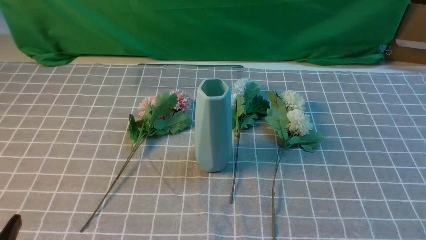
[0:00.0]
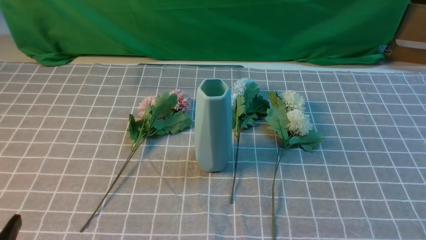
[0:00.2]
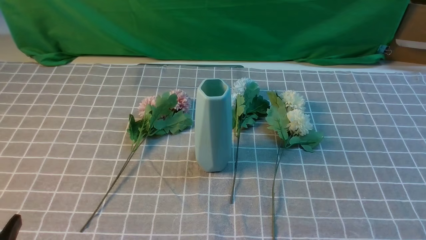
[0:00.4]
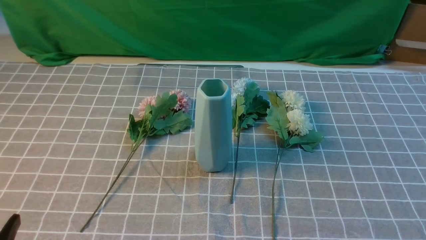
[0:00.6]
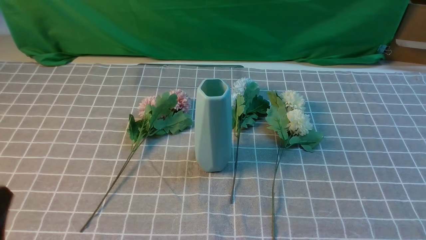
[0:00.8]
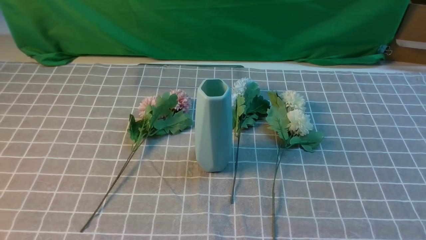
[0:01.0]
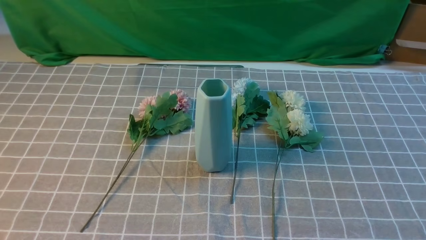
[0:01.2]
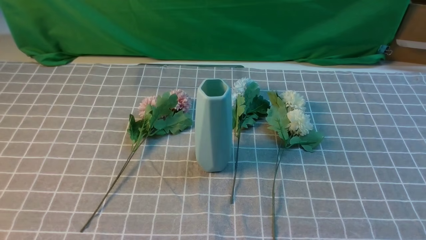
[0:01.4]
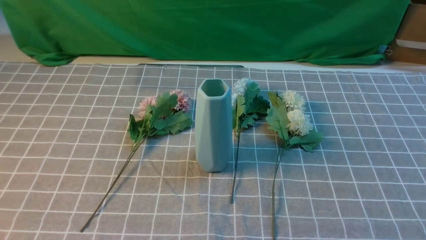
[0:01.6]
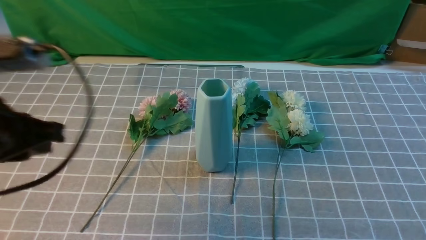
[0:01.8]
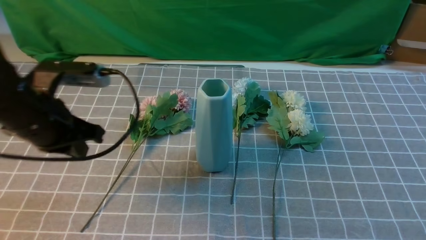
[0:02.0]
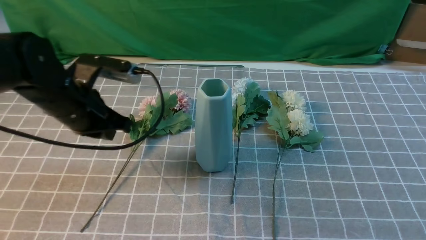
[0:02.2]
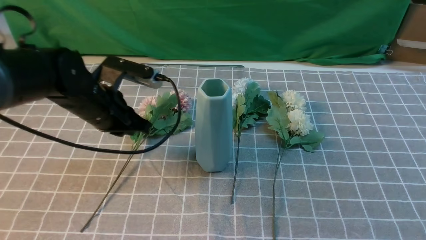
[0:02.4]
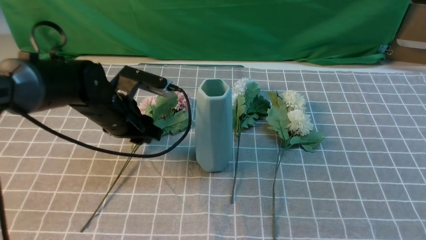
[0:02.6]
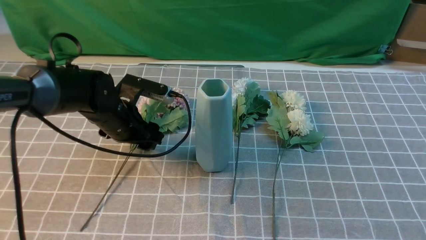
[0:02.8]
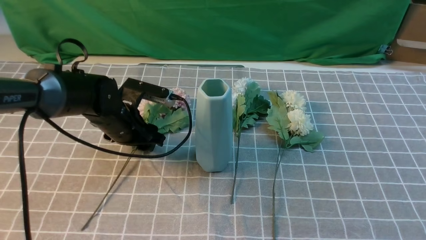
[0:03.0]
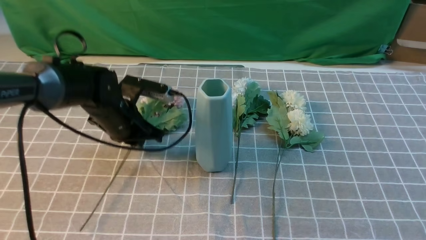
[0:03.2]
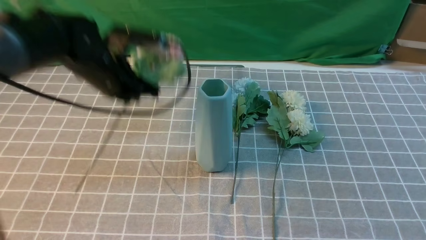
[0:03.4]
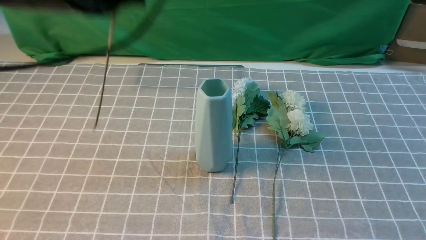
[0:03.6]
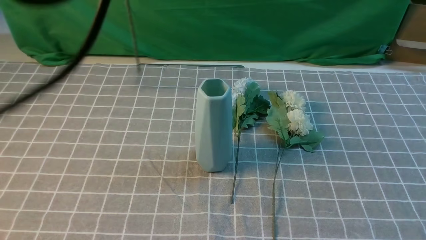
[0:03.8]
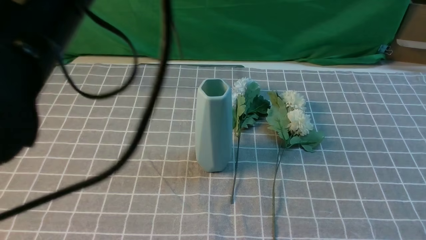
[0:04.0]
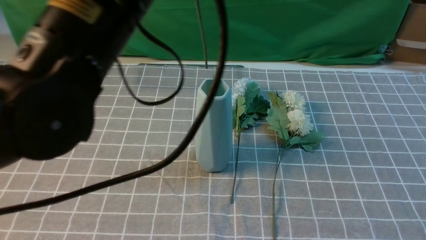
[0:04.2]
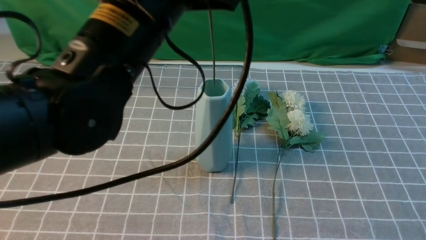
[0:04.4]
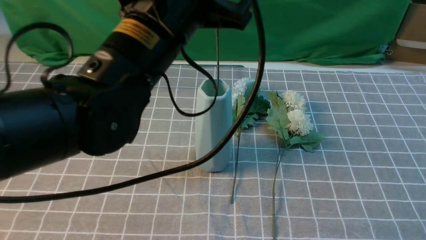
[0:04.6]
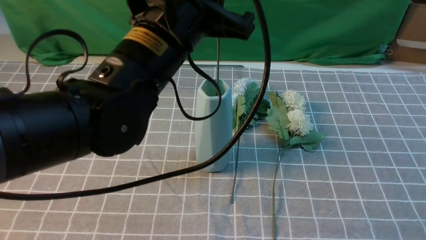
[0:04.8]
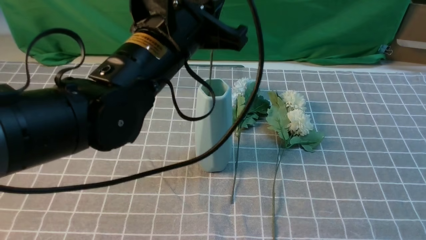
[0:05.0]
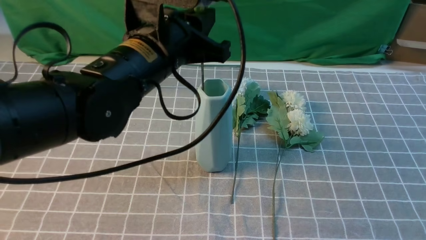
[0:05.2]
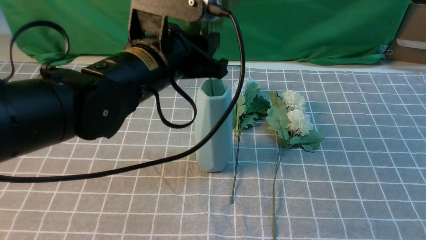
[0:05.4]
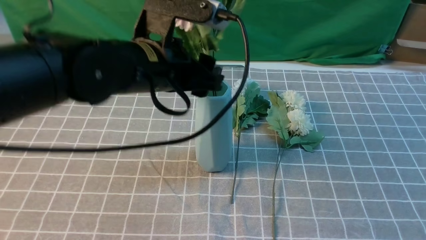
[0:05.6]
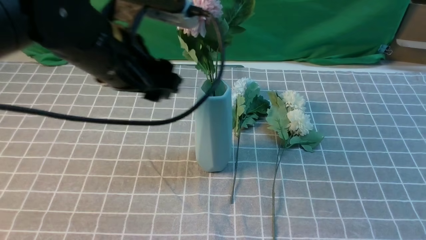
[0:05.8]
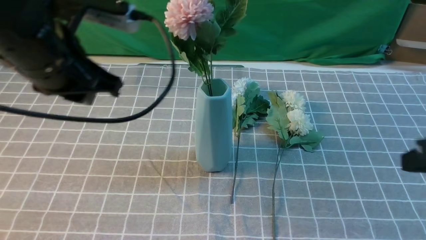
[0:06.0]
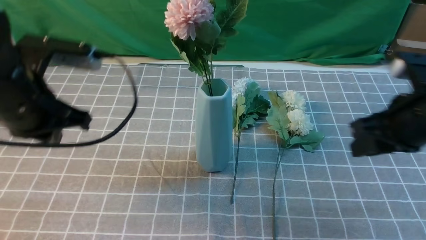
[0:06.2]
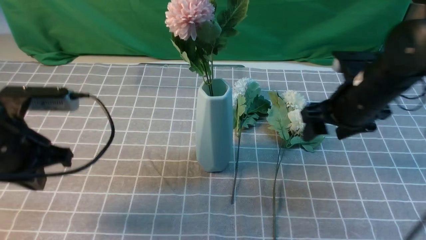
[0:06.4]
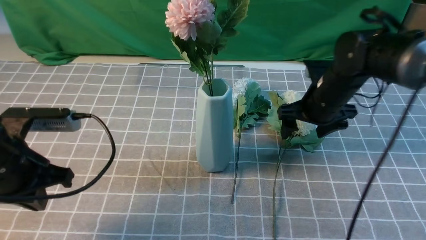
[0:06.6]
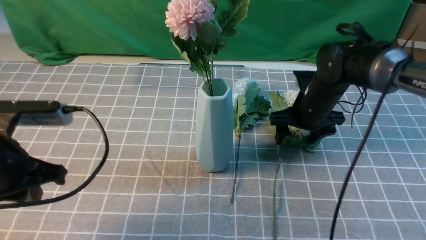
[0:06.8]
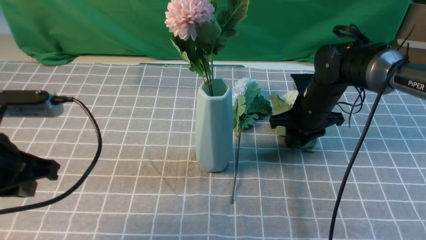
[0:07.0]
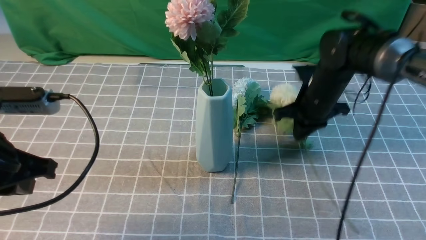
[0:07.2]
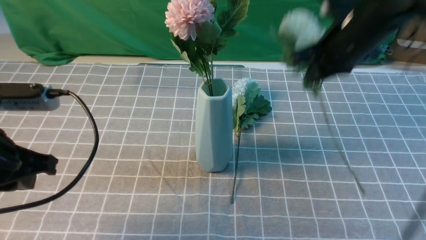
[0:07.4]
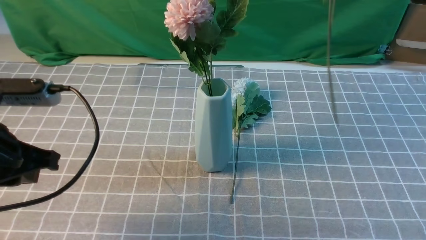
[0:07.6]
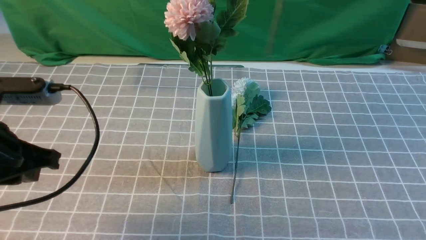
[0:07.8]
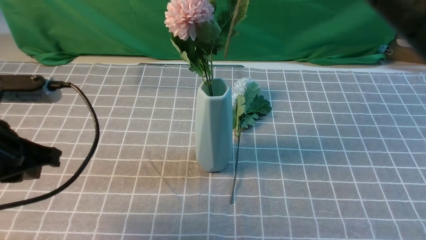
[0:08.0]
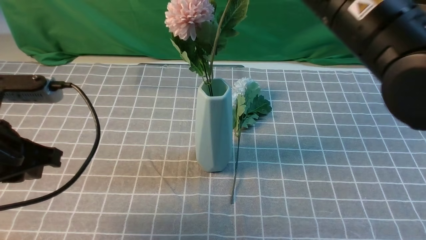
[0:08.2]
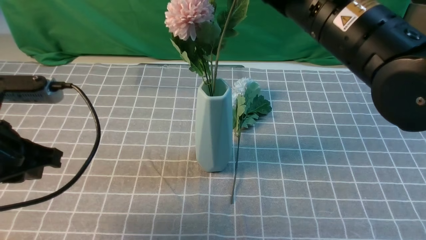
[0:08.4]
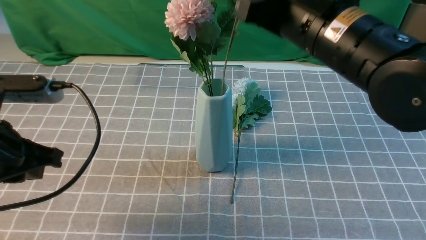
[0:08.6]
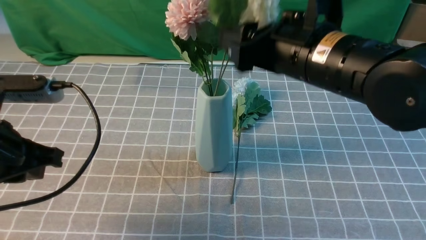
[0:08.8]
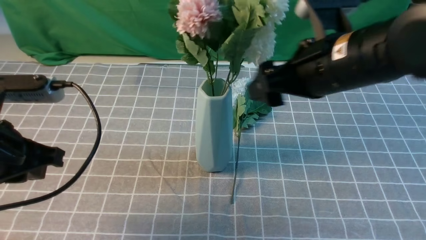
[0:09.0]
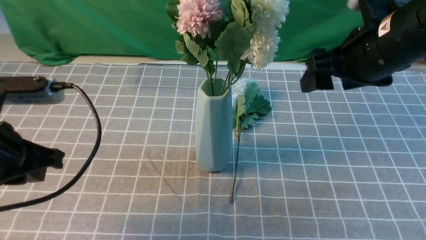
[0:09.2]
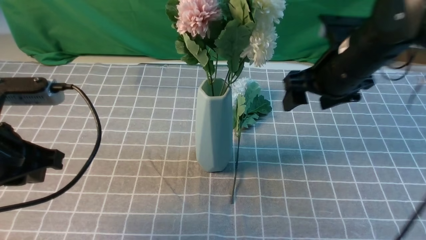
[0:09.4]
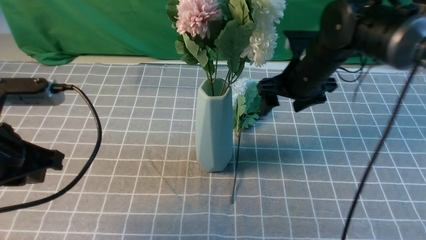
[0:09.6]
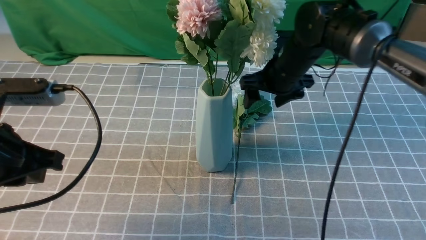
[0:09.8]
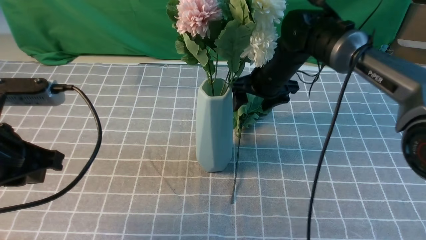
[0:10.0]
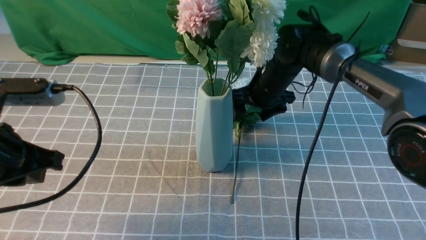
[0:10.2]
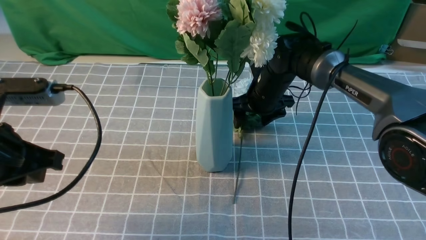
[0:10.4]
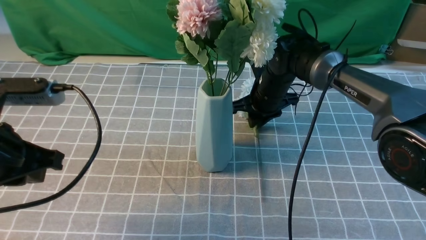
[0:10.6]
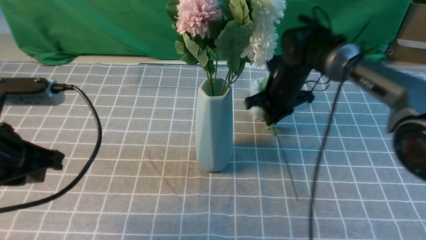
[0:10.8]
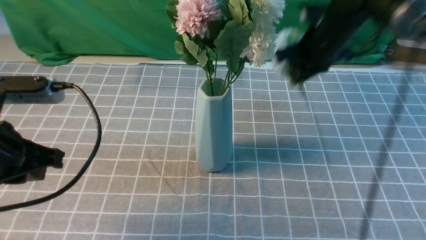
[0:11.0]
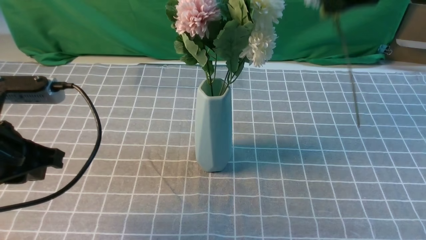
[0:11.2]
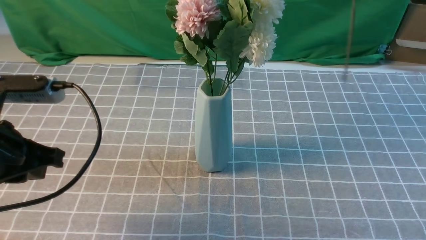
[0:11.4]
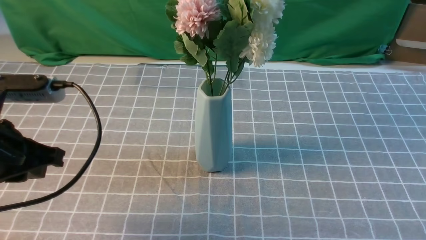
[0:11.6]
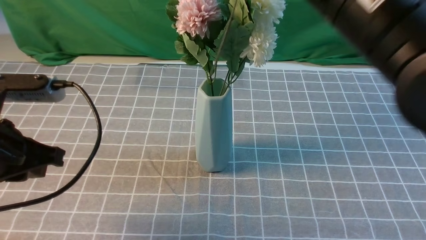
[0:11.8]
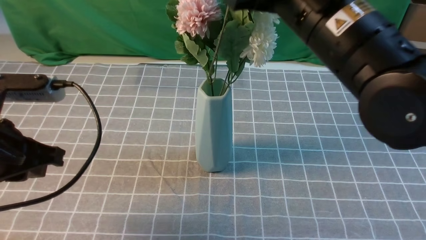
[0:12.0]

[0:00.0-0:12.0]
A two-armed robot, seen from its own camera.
Task of the whole recording: insert the flowers into the vase on the table with the grey tablecloth.
Step, 0:00.0 to 0:03.0: use the left arm to grab a bunch of fresh flowers.
Step, 0:03.4 to 0:05.6: use the left arm to insert the flowers into the vase.
Step, 0:06.0 to 0:07.2: use the right arm to grab a bunch of fresh flowers.
Step, 0:07.4 to 0:08.8: use the right arm to insert the flowers into the vase.
Step, 0:09.0 to 0:10.6: use the right arm to grab a bunch of fresh flowers.
0:01.6 to 0:03.0: The right gripper shifts approximately 10 cm upward and forward. Meanwhile the left gripper goes some 30 cm forward and downward, and opens up.
0:03.0 to 0:04.4: The left gripper heads upward and backward, covering some 25 cm, and closes.
0:04.4 to 0:06.0: The left gripper is displaced to the left and downward by about 10 cm, and opens, while the right gripper moves forward, some 10 cm.
0:06.0 to 0:07.6: The left gripper heads backward and to the left, covering roughly 10 cm, and closes its fingers, while the right gripper moves upward, forward and to the left, about 20 cm, and opens, then closes again.
0:07.6 to 0:09.0: The right gripper goes about 10 cm downward, and opens up.
0:09.0 to 0:10.4: The right gripper travels downward and forward by roughly 25 cm.
0:10.4 to 0:12.0: The right gripper shifts roughly 30 cm upward and backward, and closes.

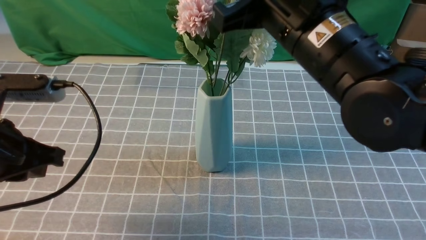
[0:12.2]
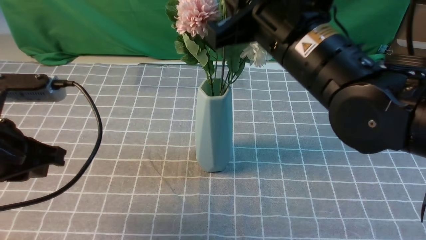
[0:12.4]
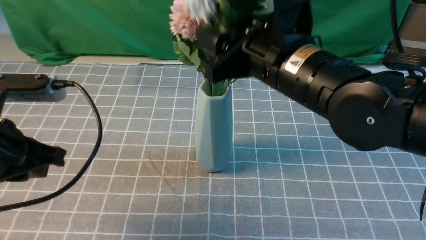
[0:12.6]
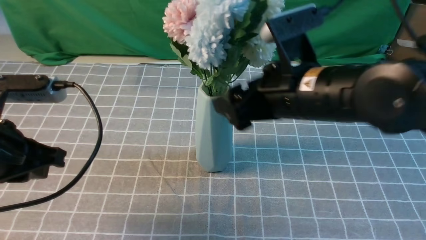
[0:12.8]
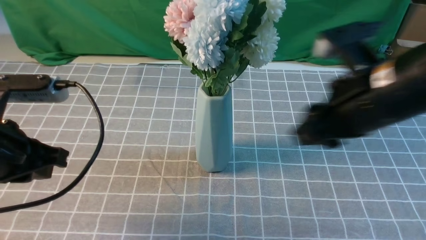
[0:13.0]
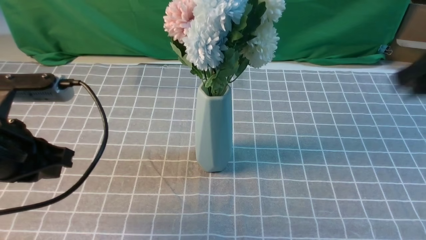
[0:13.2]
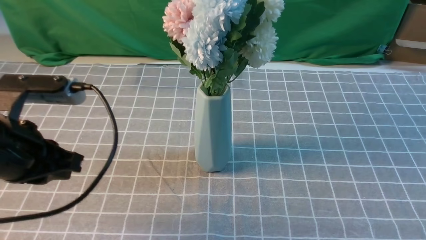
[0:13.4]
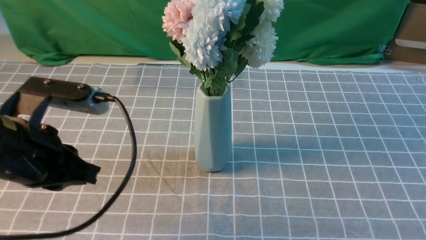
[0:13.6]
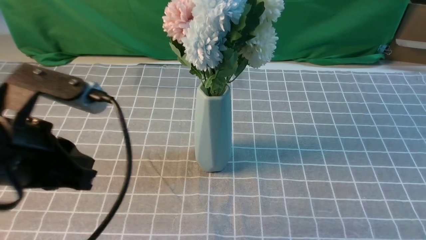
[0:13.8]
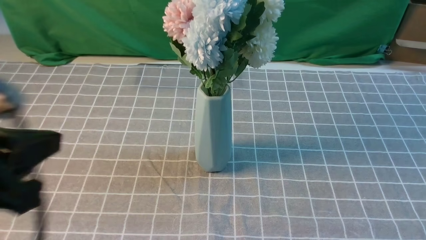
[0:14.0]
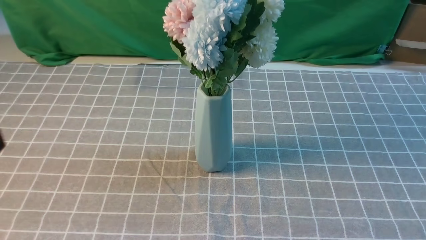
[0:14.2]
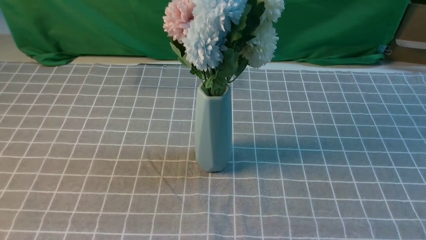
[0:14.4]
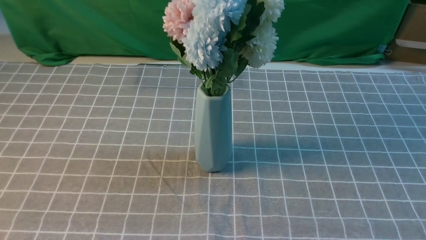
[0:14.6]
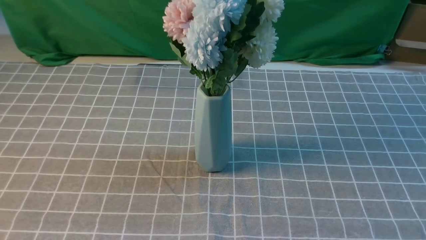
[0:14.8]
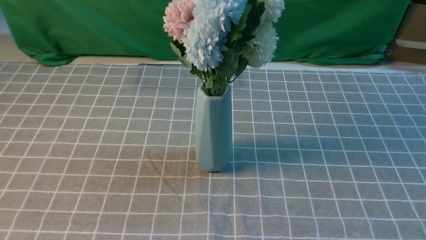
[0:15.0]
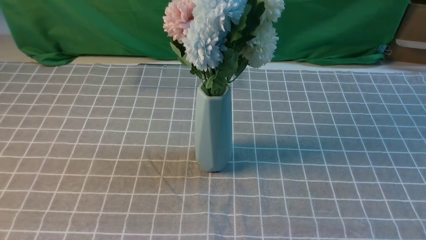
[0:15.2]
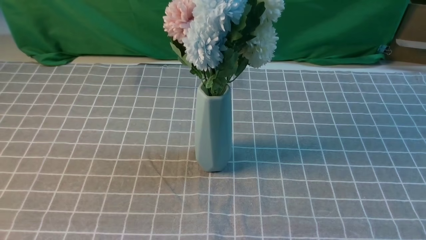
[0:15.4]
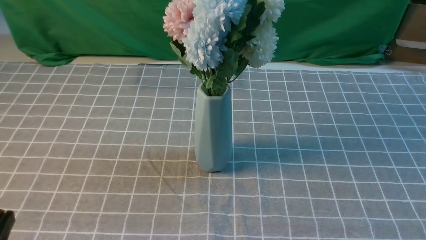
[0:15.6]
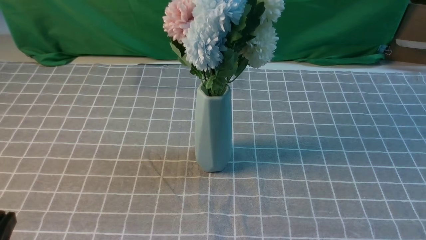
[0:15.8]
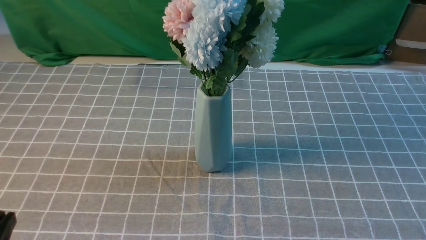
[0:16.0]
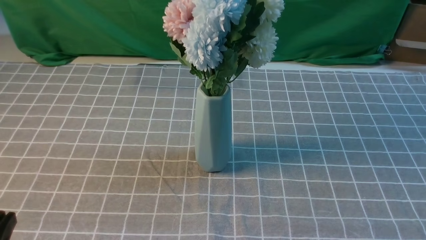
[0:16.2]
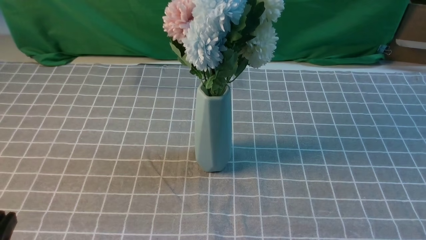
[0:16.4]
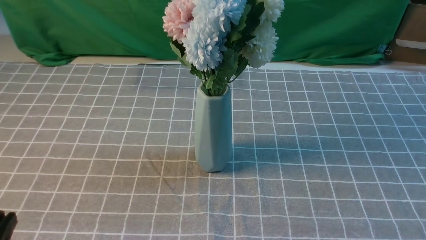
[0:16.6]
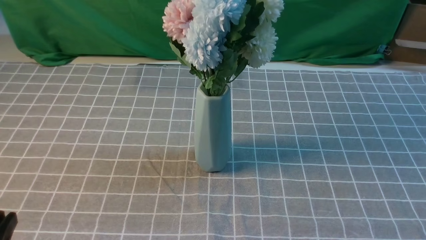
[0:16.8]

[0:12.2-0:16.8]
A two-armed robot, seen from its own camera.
Task of the whole recording: insert the flowers into the vase on the table with the grey tablecloth.
0:12.2 to 0:13.8: The left gripper travels backward by some 5 cm. Meanwhile the right gripper is displaced backward and to the right by some 35 cm, and opens, then closes again.
0:13.8 to 0:15.2: The left gripper heads backward and downward, covering about 15 cm.
